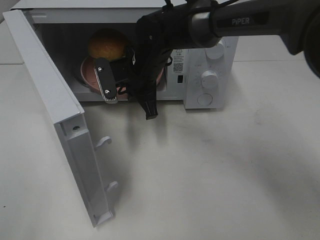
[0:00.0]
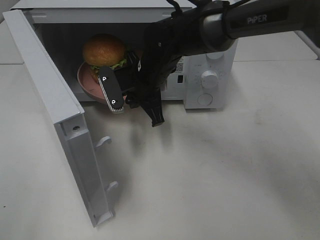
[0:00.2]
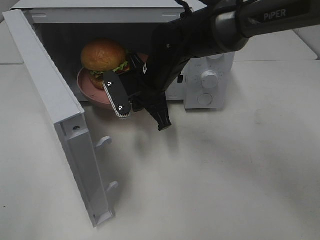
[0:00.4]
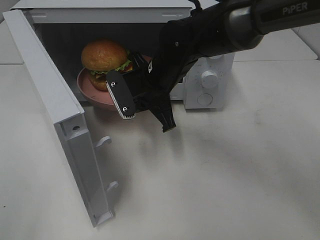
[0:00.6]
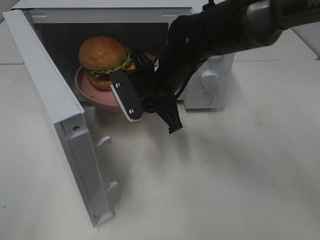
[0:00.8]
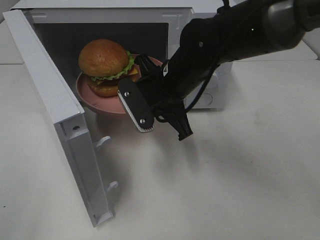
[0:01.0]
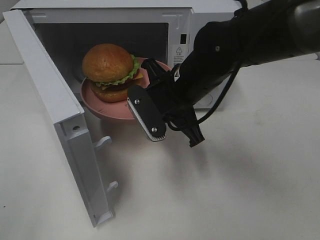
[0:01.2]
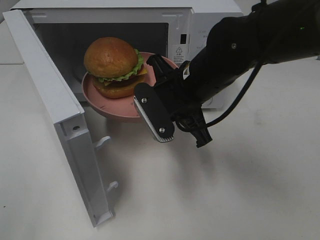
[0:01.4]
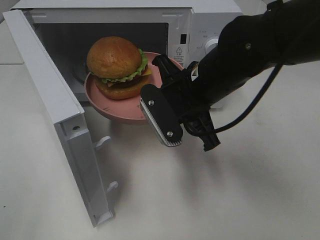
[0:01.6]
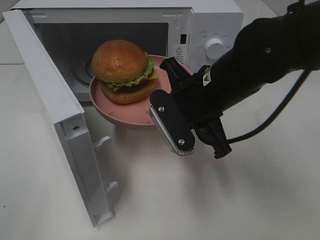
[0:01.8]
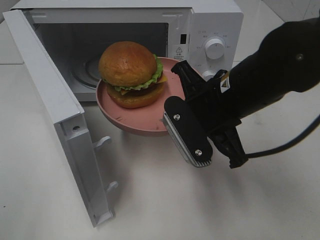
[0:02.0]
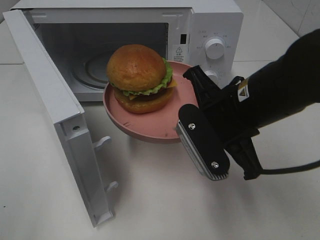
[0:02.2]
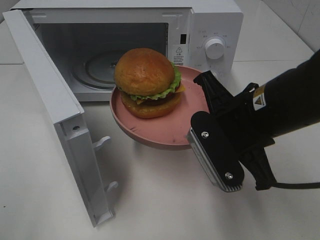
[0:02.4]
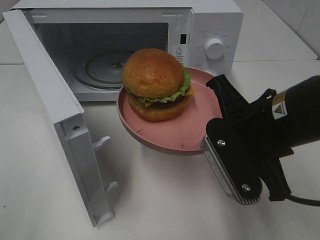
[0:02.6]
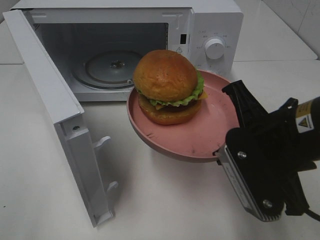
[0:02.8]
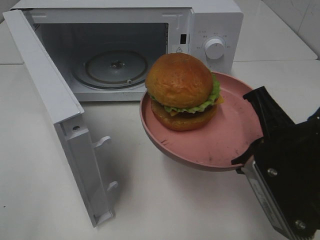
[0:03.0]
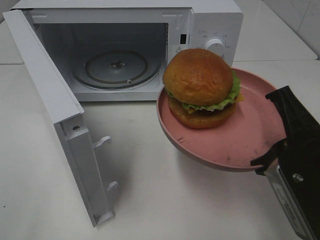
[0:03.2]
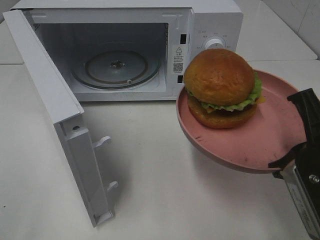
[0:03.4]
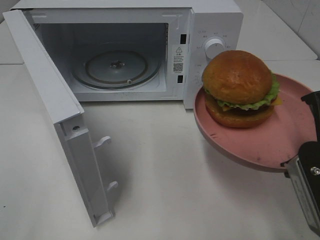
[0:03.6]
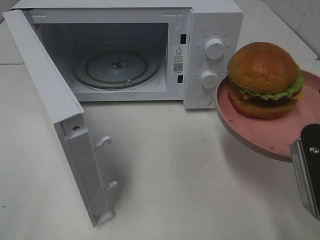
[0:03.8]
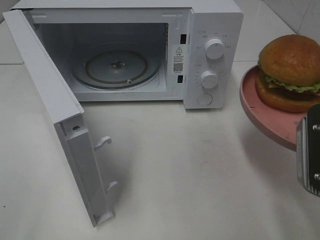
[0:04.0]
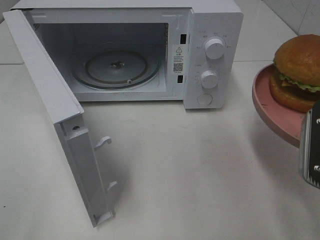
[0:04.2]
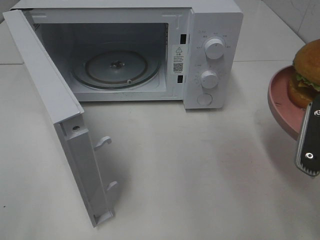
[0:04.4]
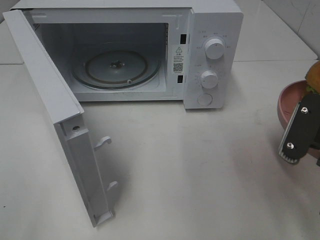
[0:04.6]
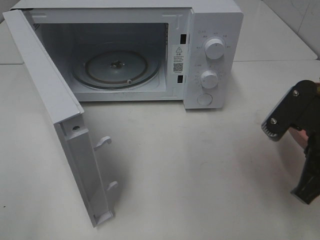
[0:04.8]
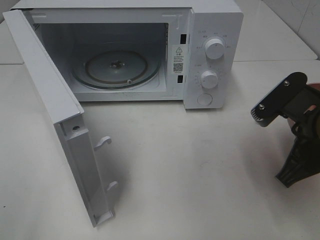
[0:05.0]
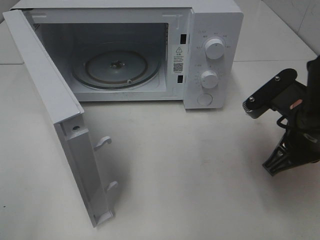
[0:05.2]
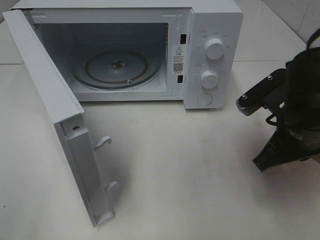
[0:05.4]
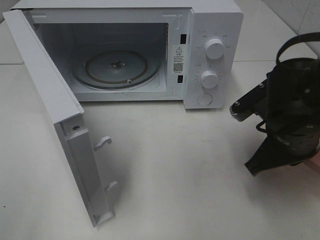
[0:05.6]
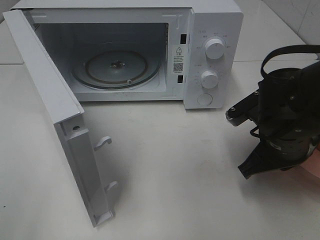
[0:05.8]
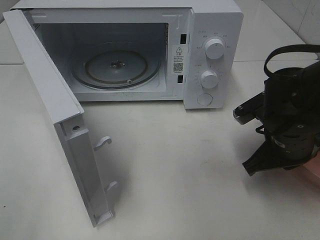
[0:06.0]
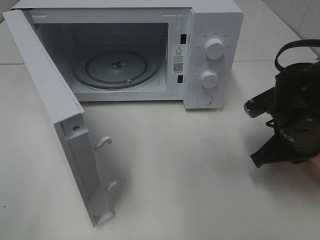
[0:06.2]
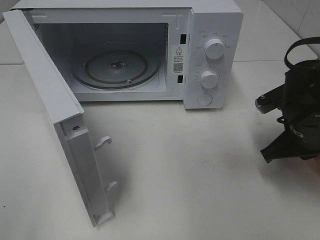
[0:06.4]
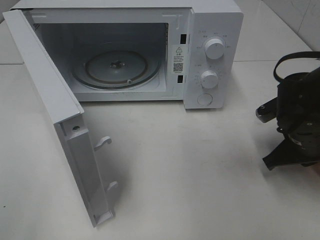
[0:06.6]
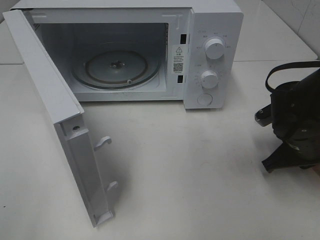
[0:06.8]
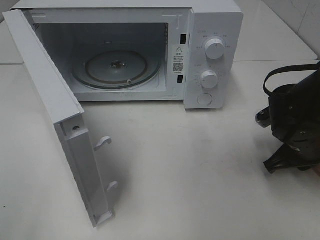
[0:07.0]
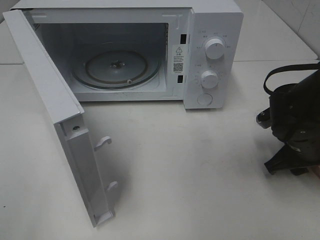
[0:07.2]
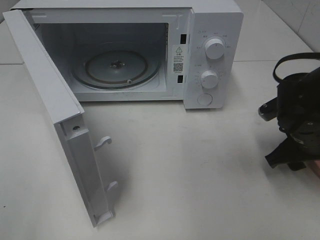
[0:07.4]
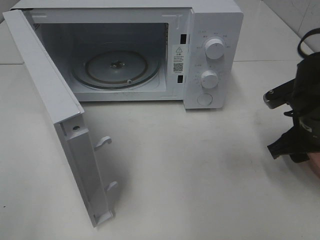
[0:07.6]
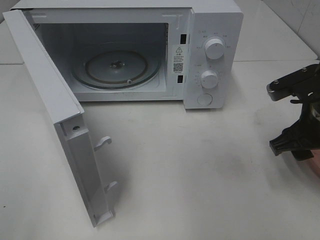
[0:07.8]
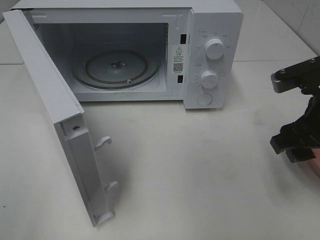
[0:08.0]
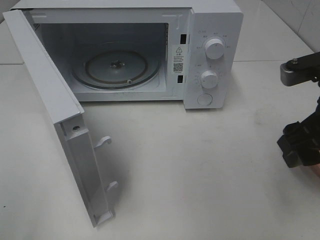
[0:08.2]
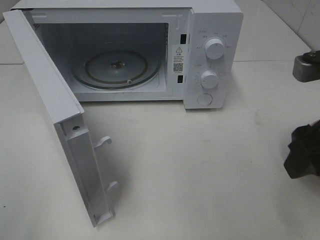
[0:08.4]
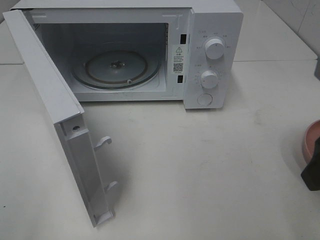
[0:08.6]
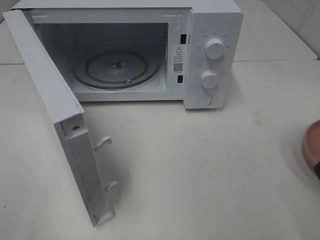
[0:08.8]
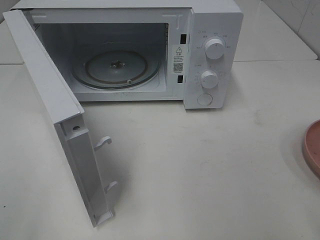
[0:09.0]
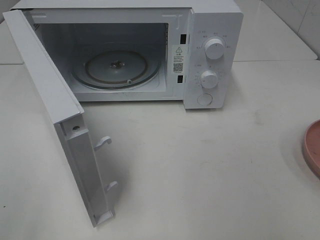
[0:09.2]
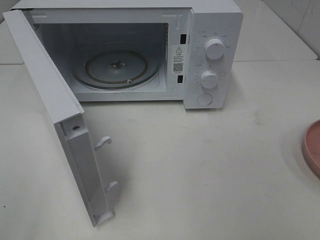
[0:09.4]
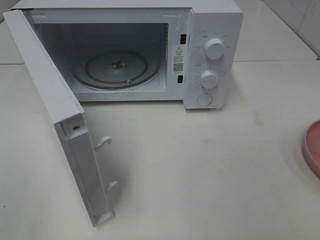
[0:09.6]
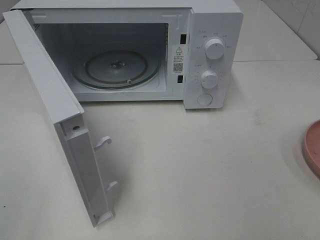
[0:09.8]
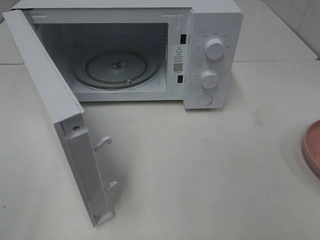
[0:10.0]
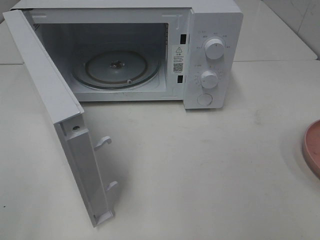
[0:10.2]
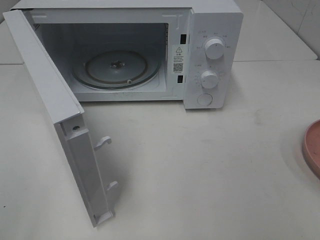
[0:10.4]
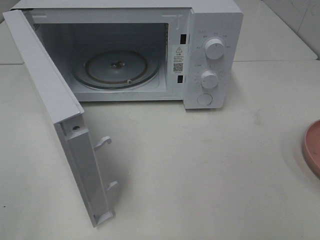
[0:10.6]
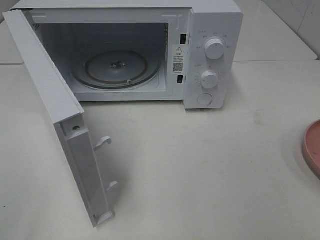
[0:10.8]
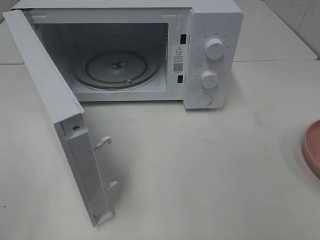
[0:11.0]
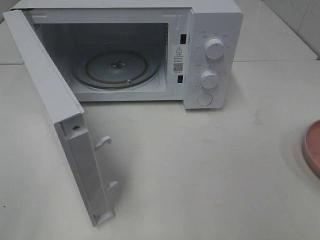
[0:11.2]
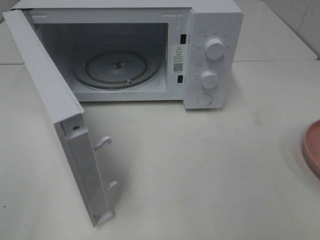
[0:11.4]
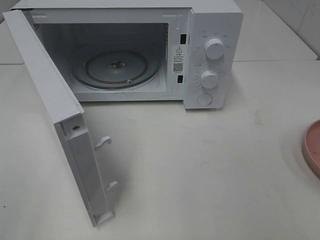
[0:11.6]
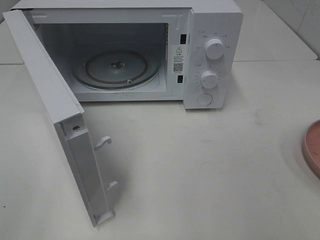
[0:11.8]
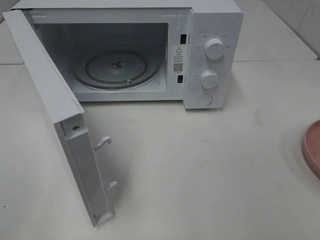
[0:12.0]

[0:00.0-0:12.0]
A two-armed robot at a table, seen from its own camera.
Task of the whole recording: Heat the burger.
Step, 0:00.0 to 0:07.6: Right hand: place the plate on the table.
0:00.0 to 0:01.6: The right gripper heads backward and to the right, covering some 15 cm.
0:01.6 to 0:03.0: The right gripper moves backward and to the right, some 15 cm.
0:03.0 to 0:04.4: The right gripper travels to the right by about 5 cm.
0:04.4 to 0:06.0: The right gripper moves forward and downward, some 15 cm.
0:06.0 to 0:07.6: The right gripper opens its fingers.
0:07.6 to 0:09.0: The right gripper travels backward and upward by some 25 cm.
0:10.4 to 0:12.0: The two grippers keep their place.

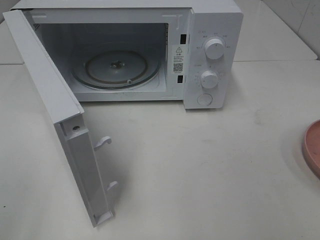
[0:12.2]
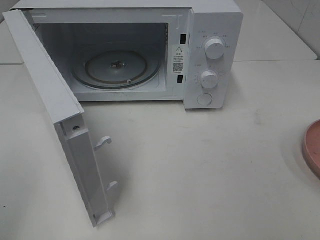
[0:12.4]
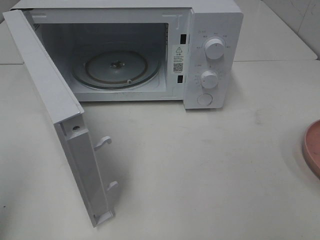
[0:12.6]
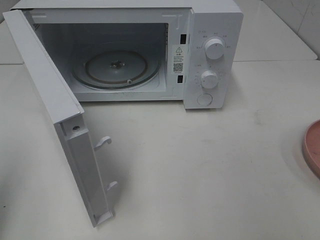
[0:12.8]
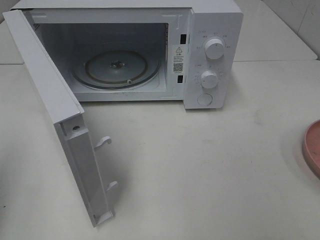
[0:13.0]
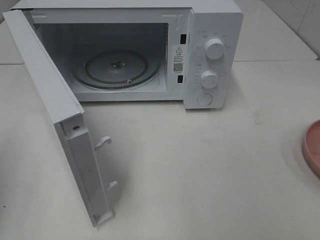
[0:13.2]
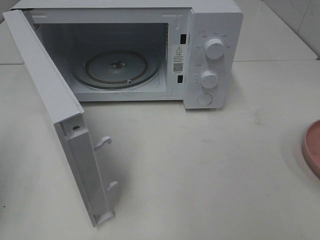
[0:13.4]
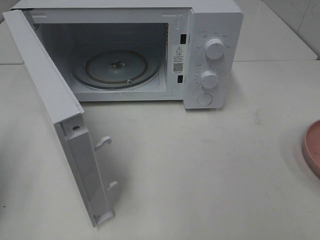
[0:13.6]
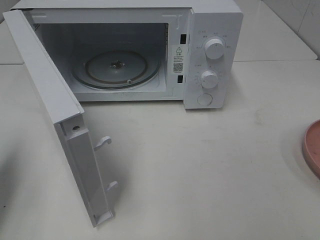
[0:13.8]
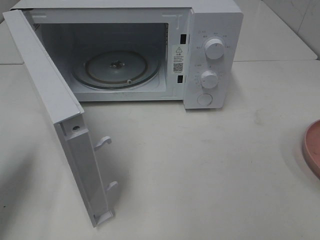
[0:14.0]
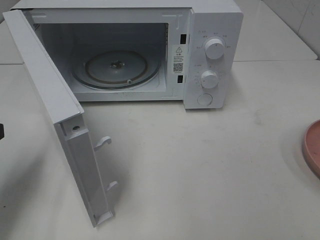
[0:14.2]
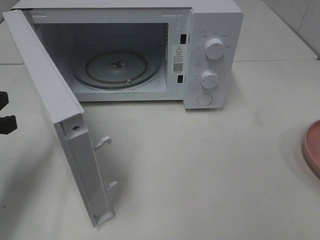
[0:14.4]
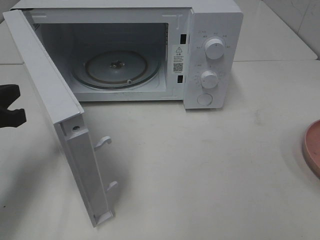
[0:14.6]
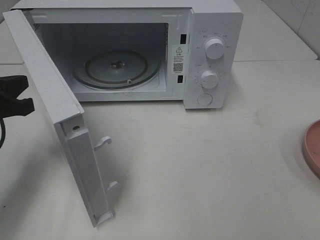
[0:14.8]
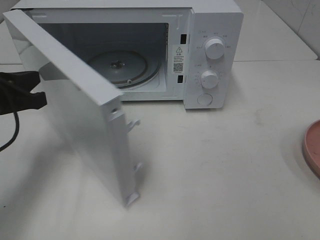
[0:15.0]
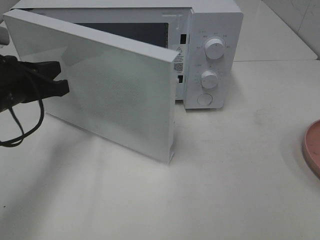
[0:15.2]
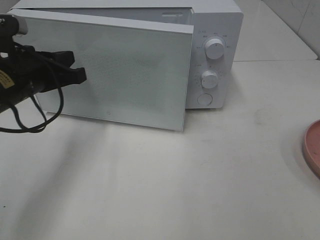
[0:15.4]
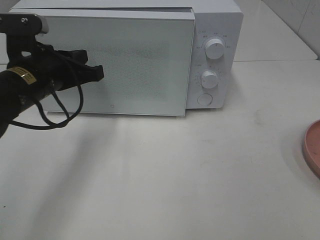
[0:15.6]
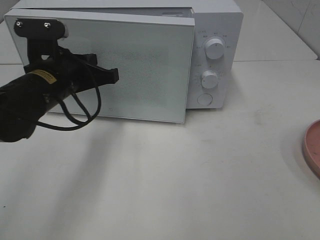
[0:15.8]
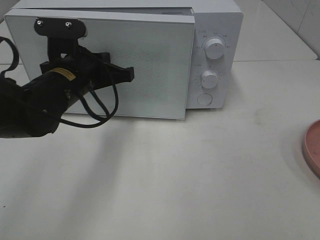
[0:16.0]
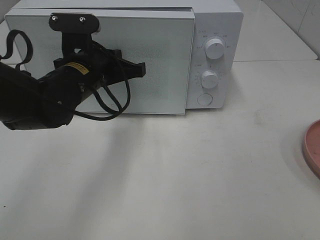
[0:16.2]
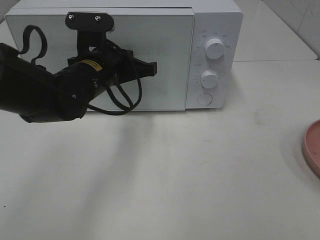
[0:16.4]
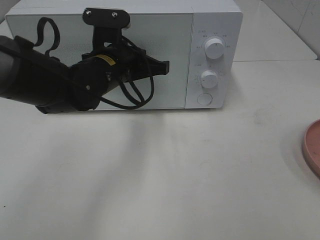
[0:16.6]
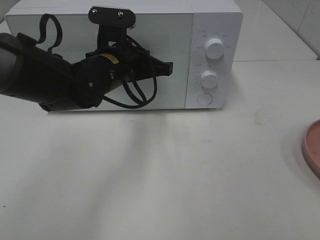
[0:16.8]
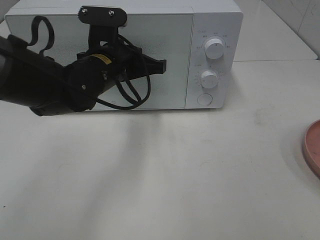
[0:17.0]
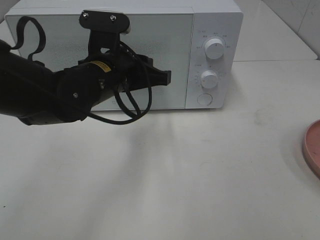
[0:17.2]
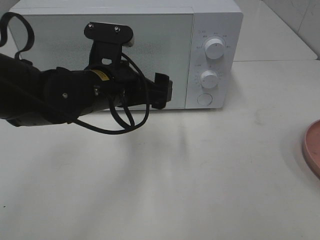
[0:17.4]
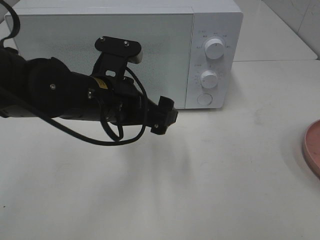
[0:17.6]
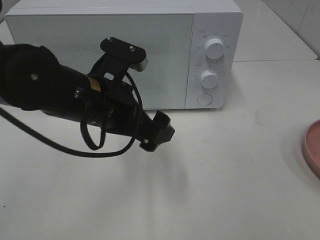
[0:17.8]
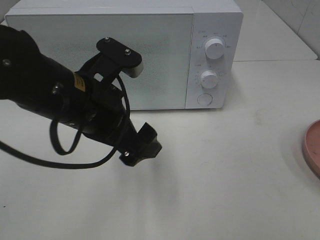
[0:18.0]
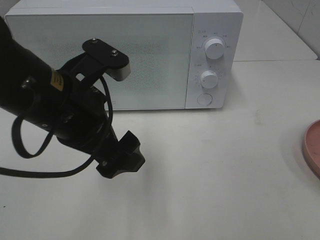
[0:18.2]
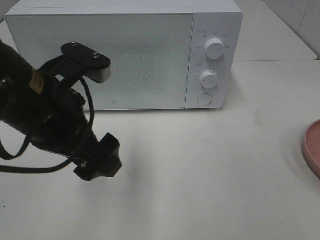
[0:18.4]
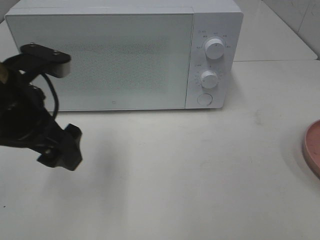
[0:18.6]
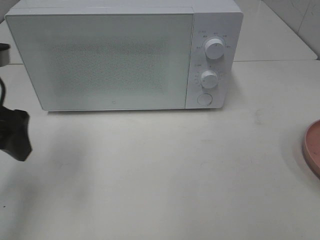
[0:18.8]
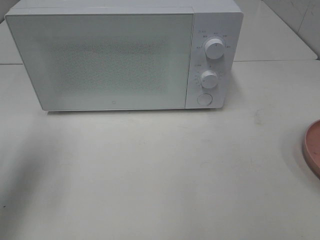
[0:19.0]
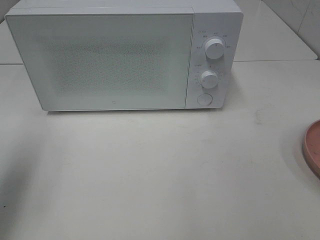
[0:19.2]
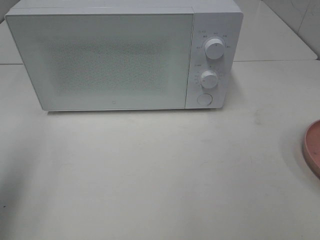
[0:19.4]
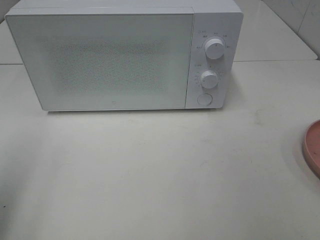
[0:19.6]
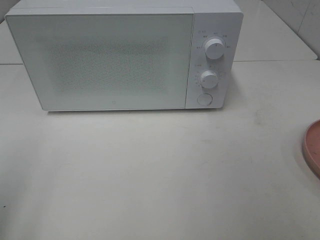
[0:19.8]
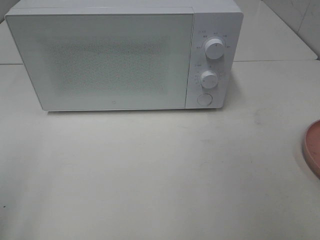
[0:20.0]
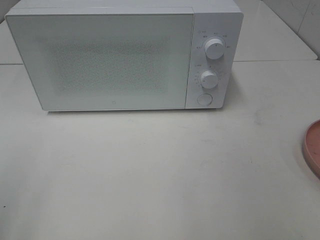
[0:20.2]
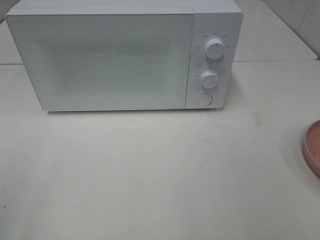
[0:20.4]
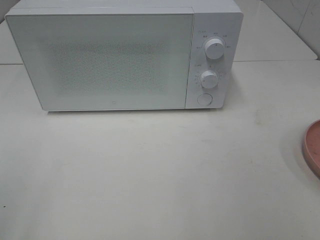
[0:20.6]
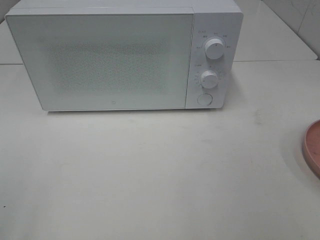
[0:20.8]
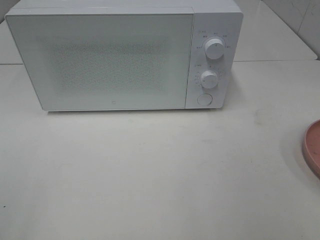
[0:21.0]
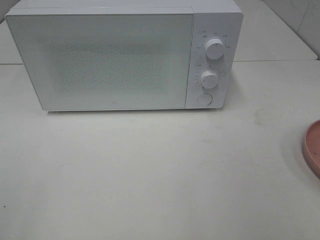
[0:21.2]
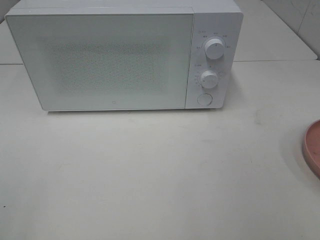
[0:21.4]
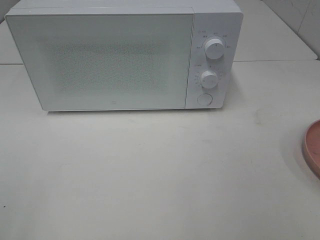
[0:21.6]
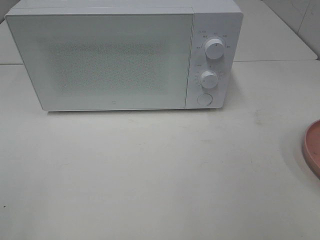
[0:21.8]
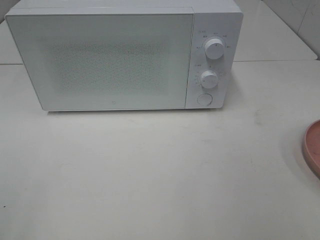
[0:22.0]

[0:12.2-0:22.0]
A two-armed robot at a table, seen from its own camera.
Task of the whole recording: Heat the burger.
Step, 0:12.2 to 0:17.2: Left hand: close the microwave door.
0:13.6 to 0:15.0: The left gripper shifts some 15 cm forward, to the right and downward.
0:15.0 to 0:16.4: The left gripper goes roughly 20 cm to the right and forward.
0:16.4 to 0:17.8: The left gripper travels backward by approximately 10 cm, and opens up.
0:17.8 to 0:19.2: The left gripper is displaced to the left and upward by about 25 cm.
0:19.2 to 0:20.6: The left gripper shifts about 15 cm backward.
